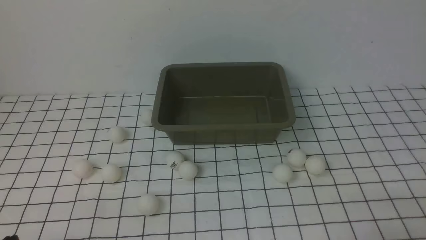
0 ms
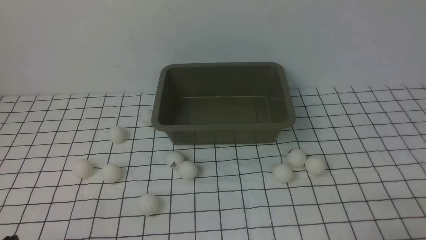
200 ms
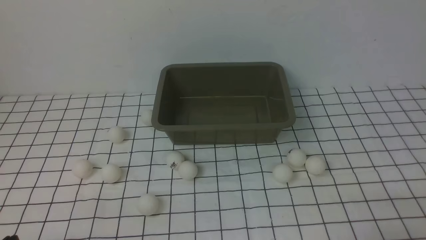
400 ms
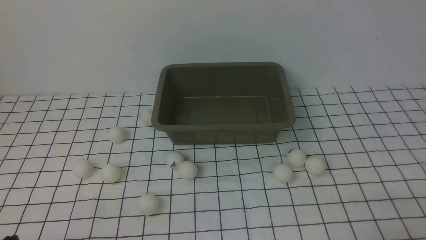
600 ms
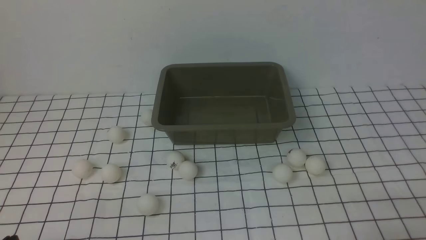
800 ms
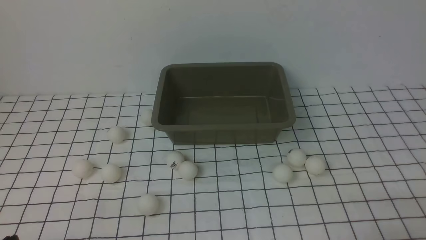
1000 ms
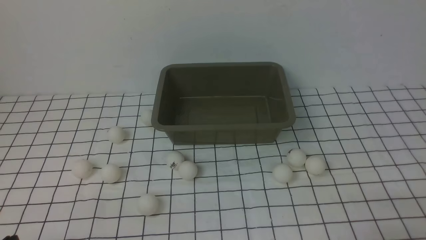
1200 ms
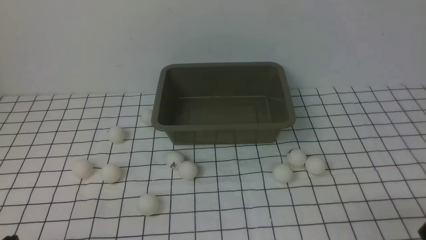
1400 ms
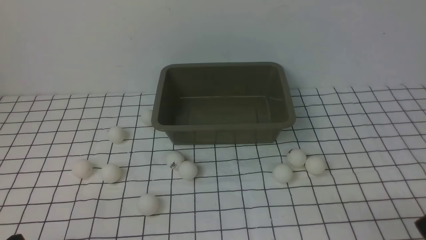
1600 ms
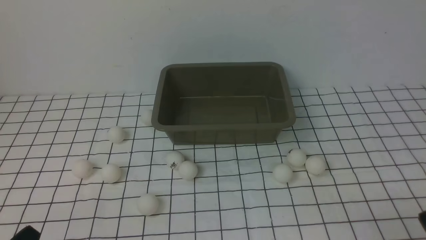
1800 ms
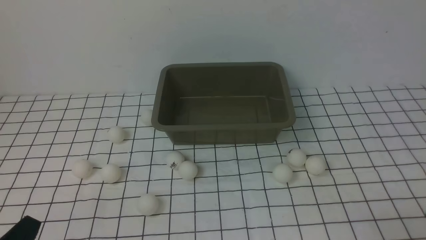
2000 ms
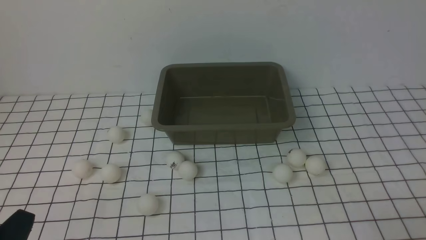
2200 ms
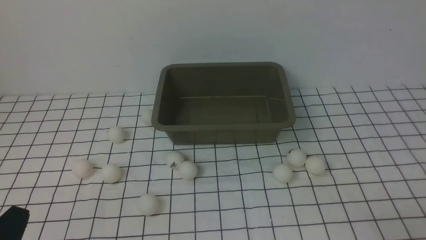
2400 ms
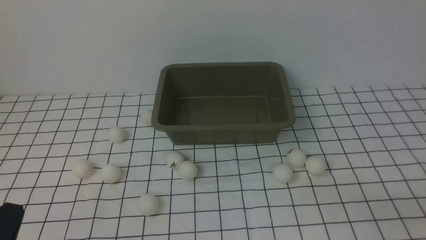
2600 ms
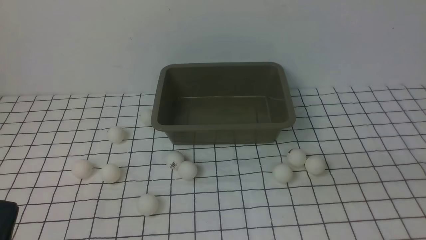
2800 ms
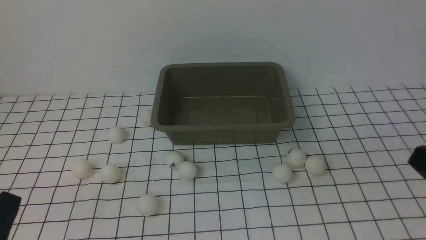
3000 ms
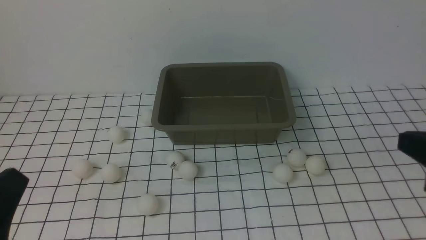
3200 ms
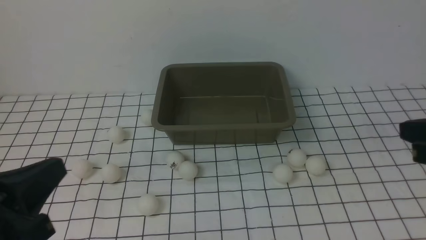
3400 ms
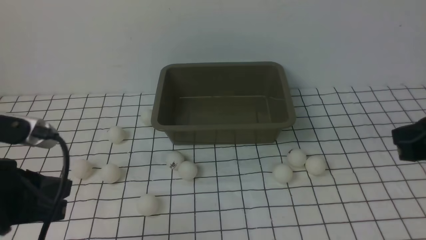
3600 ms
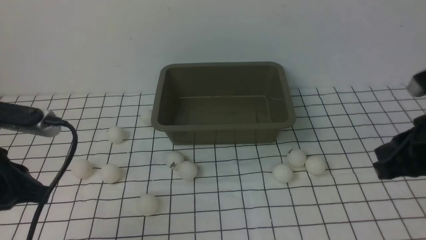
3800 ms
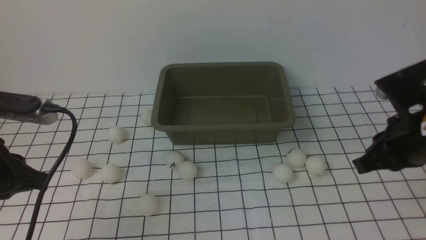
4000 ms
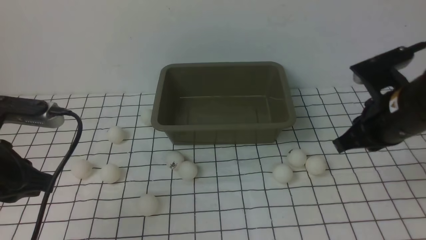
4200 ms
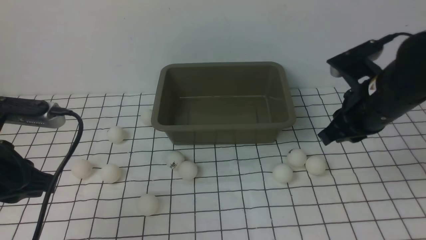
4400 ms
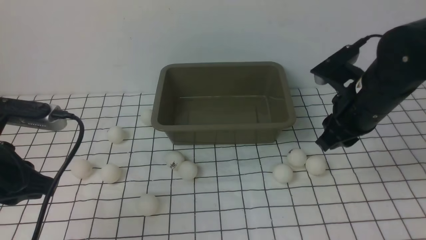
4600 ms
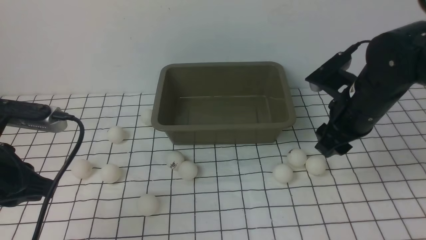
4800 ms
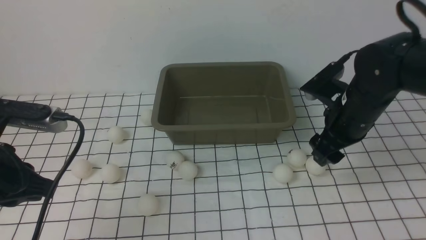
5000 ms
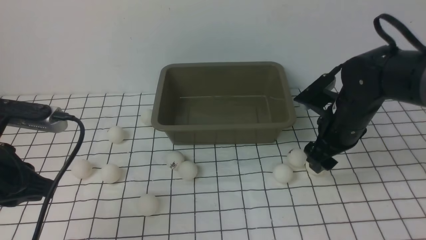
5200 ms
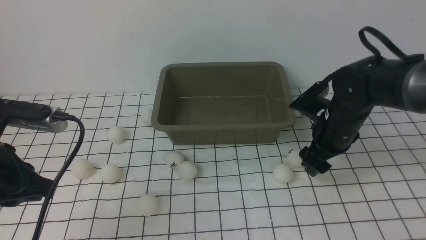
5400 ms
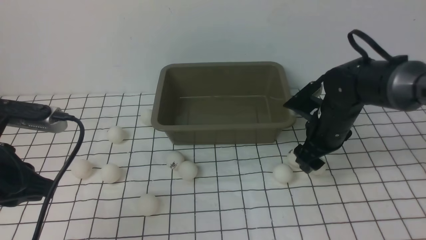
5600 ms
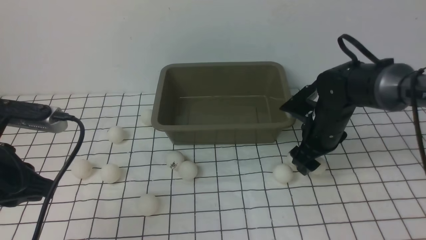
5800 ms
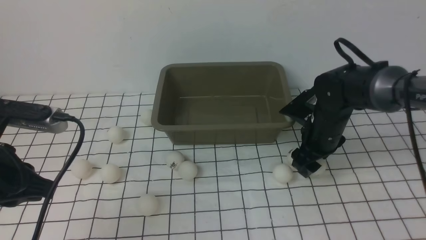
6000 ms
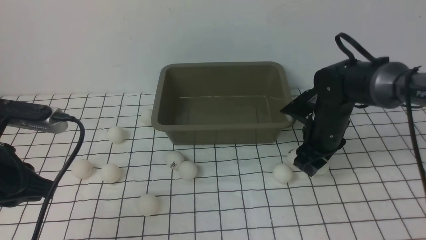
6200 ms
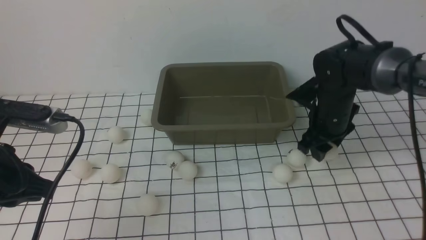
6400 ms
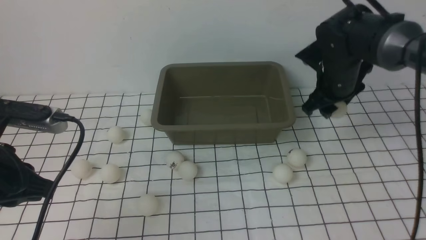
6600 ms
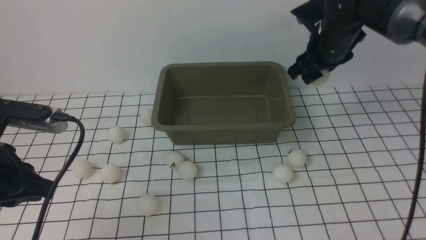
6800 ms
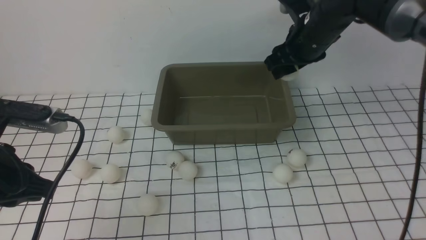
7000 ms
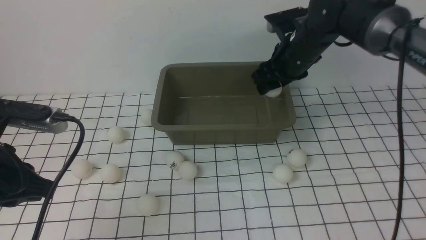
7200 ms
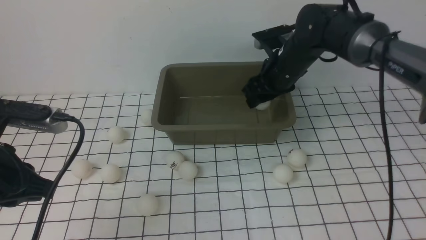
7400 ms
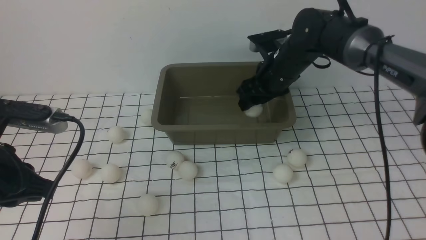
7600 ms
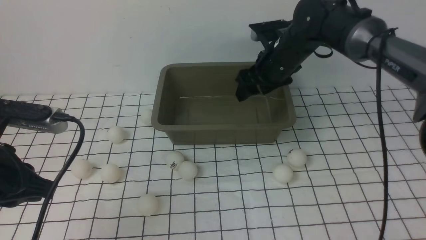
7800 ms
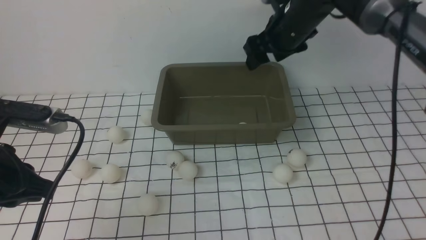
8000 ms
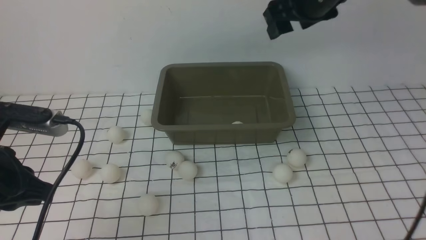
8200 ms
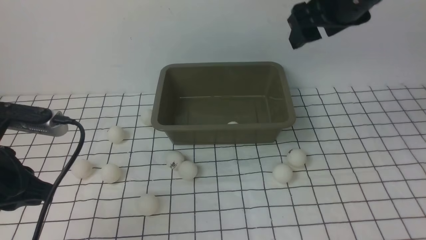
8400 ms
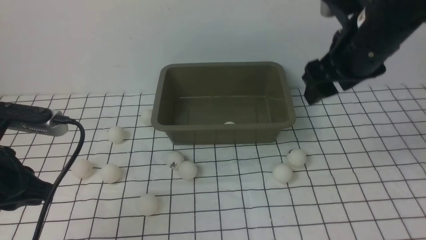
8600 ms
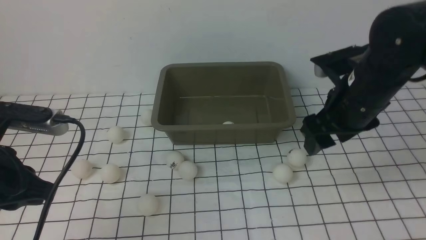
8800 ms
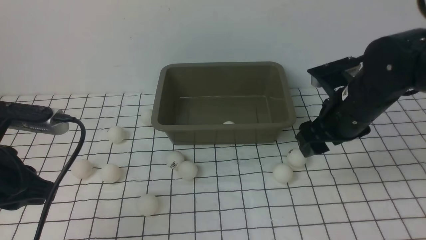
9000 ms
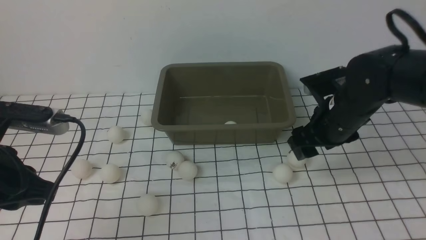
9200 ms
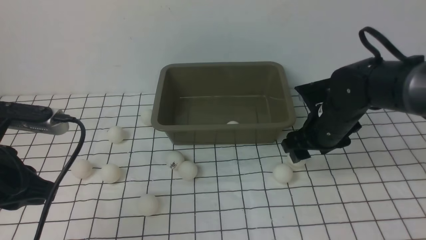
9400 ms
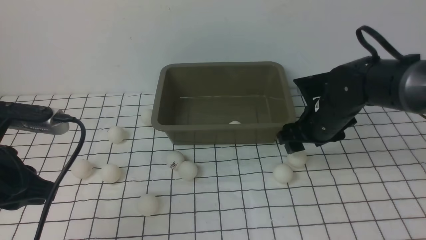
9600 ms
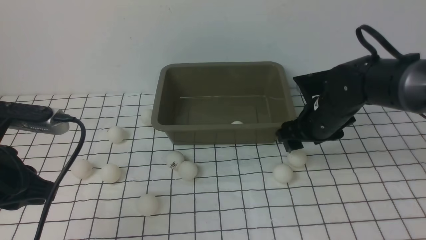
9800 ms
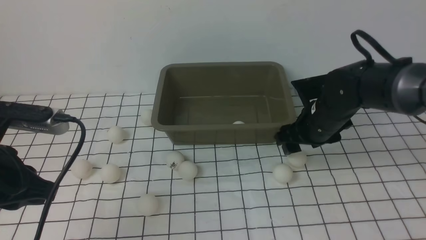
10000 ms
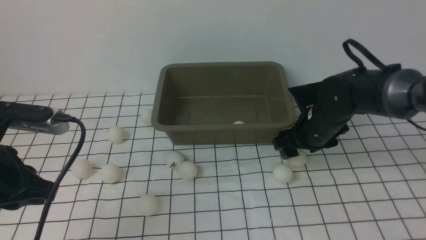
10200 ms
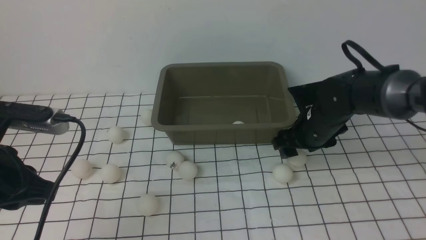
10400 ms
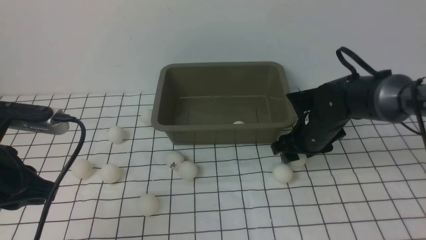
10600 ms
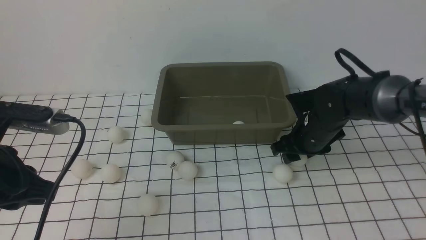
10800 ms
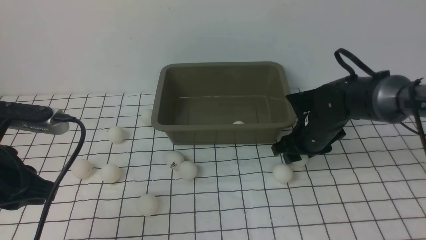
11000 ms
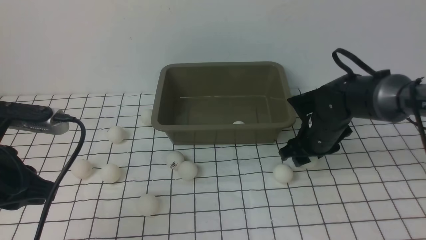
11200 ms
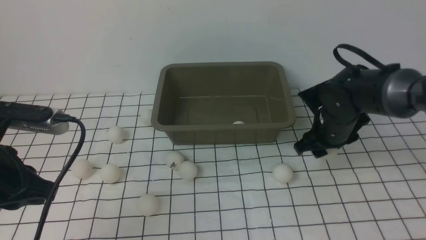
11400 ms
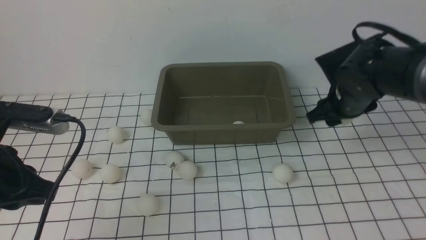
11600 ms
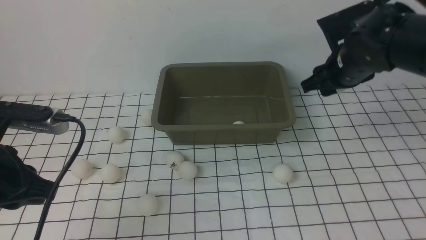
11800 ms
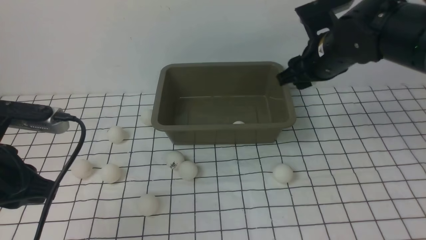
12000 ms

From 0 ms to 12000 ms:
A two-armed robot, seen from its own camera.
Step, from 0 ms to 6400 ms: use the right arm to clamp the table tennis ball closest to it.
Step, from 6600 ms to 7800 ms: use the right arm to put the table tennis ball into the box.
Step, from 8000 ms to 11400 ms: use the right arm to clamp the table tennis ball closest to it.
From 1600 ms to 3000 ms: The left gripper shifts by roughly 5 cm.
From 3000 ms to 4400 ms: The right gripper is displaced forward by approximately 20 cm. The left gripper shifts approximately 15 cm forward and upward.
From 4400 ms to 6000 ms: The right gripper shifts approximately 15 cm downward and forward, and opens.
From 6000 ms to 7600 ms: The right gripper moves upward, forward and to the left, roughly 15 cm.
From 7600 ms to 9000 ms: The right gripper shifts some 15 cm backward and to the right, and goes upward and returns, approximately 15 cm each way.
From 9000 ms to 10400 ms: The right gripper goes about 5 cm downward.
From 10400 ms to 12000 ms: The right gripper moves upward, about 10 cm.

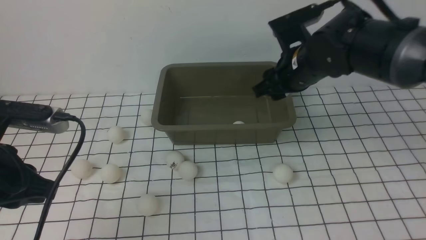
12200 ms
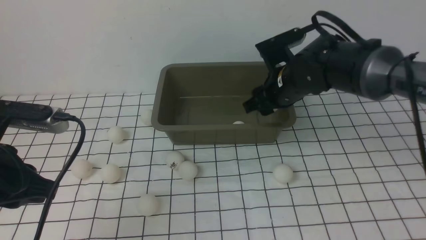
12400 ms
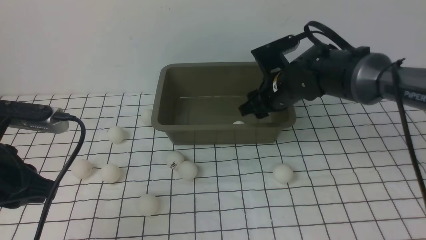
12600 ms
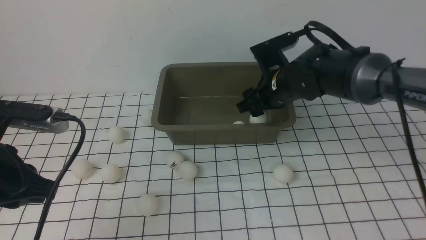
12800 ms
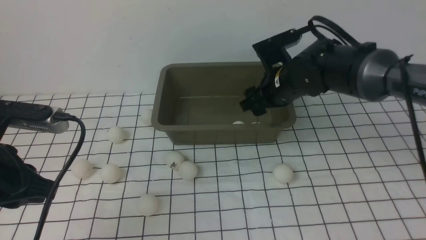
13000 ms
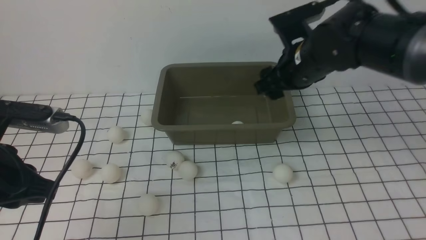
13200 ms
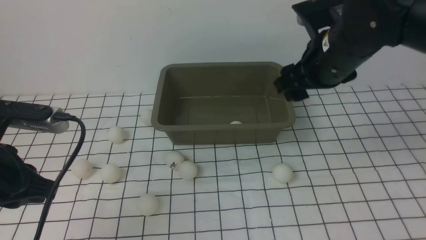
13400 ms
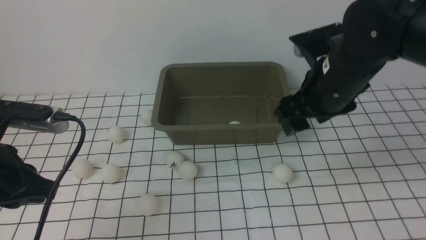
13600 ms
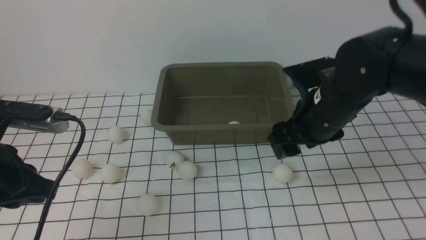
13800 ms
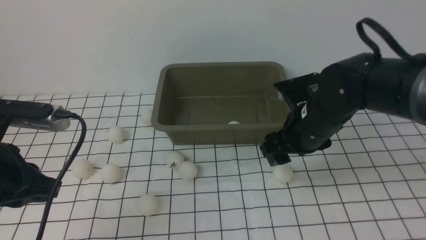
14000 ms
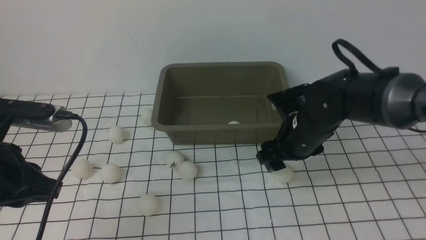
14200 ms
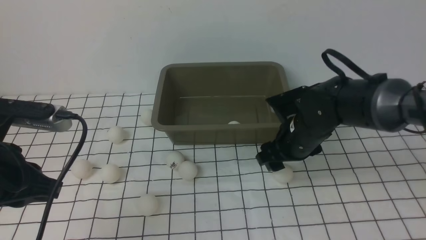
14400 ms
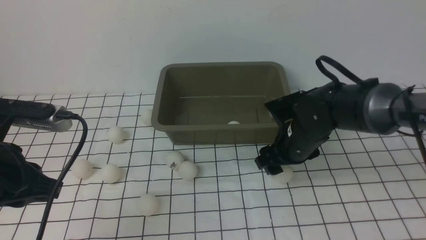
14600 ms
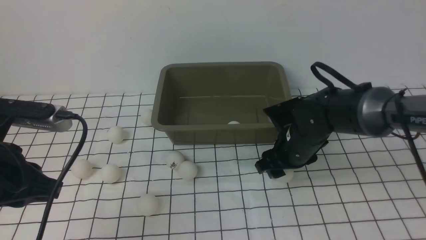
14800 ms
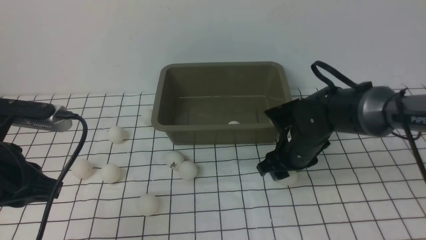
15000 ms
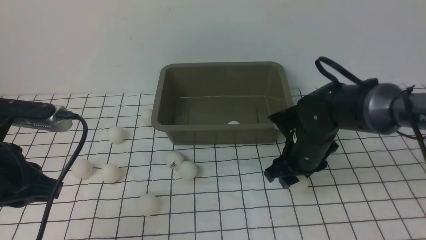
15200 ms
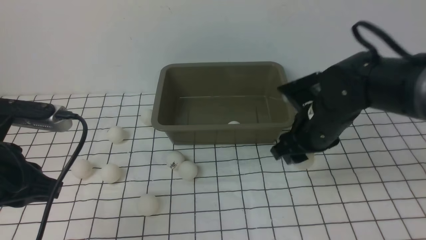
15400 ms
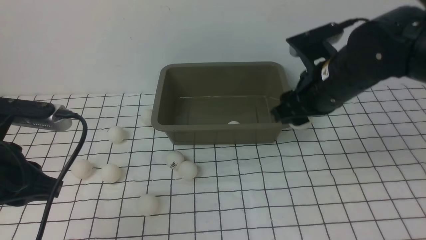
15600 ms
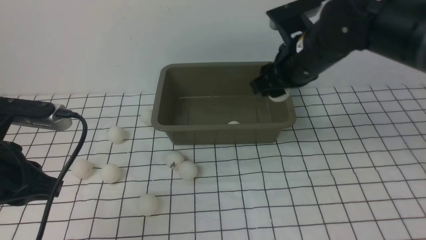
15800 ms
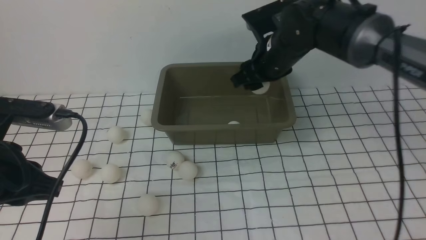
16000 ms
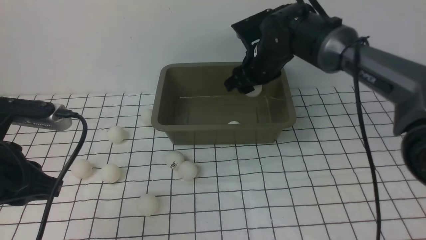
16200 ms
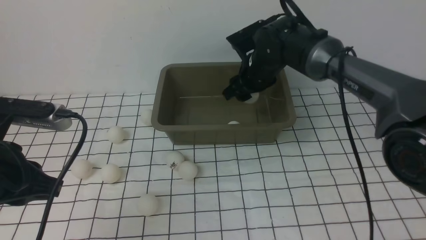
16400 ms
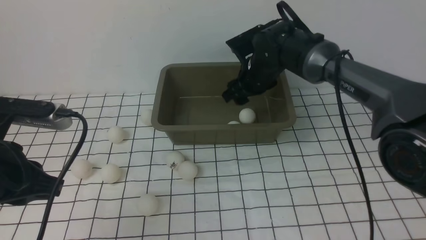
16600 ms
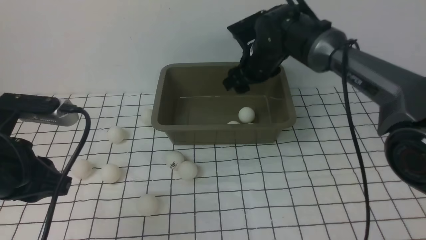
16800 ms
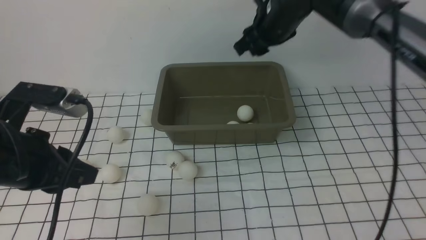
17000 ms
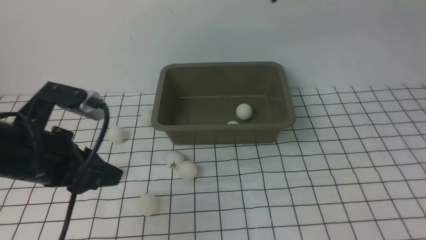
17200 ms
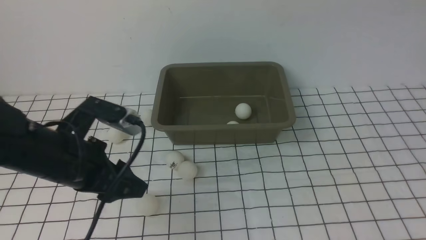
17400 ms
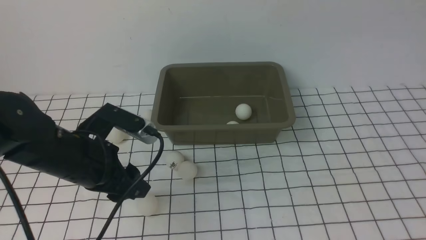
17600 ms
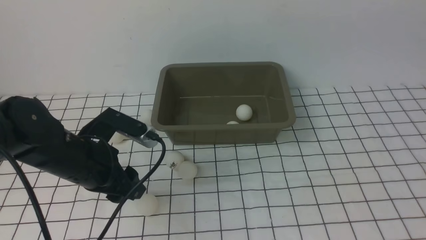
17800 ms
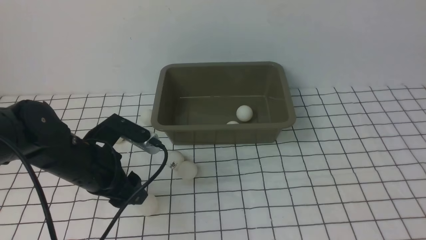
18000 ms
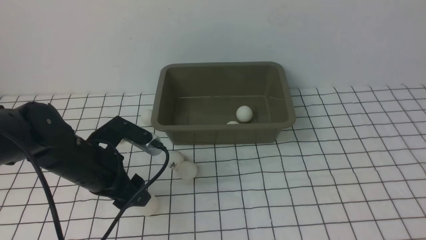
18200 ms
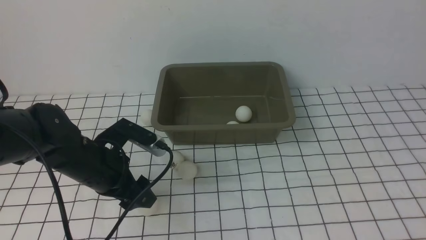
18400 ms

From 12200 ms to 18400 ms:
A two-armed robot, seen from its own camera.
Step, from 12200 ms to 13000 ms: use the right arm to put the table tennis ball into the box.
Step, from 13200 ms to 15400 ms: use the right arm to clamp the table tennis ball closest to it.
Step, from 15600 ms to 16600 ms: use the right arm to put the table tennis ball into the box.
From 12200 ms to 13800 ms: The right gripper is displaced backward by about 5 cm.
From 13800 ms to 15400 ms: The right gripper reaches some 10 cm downward, then returns.
From 15400 ms to 16800 ms: The right gripper shifts about 15 cm forward, upward and to the left.
From 16800 ms to 18400 ms: The left gripper shifts about 15 cm downward, forward and to the right, and opens its fingers. The right gripper is displaced backward, upward and to the right by approximately 40 cm, and closes.
